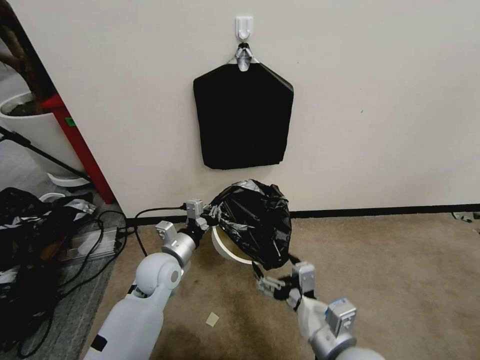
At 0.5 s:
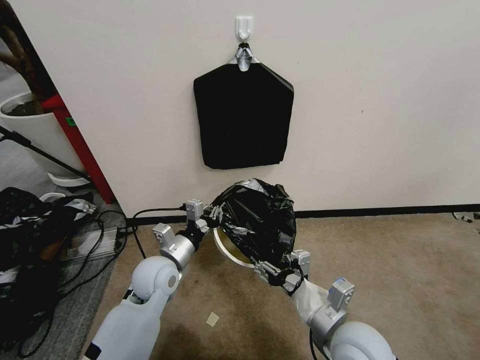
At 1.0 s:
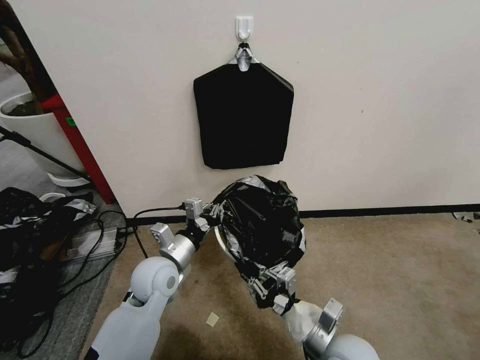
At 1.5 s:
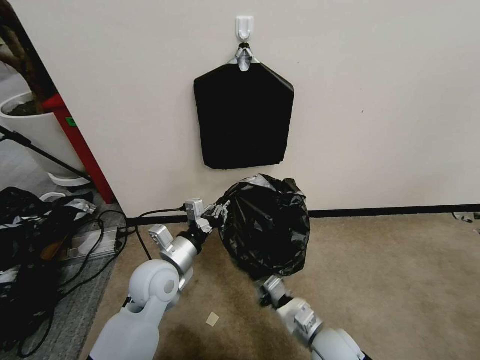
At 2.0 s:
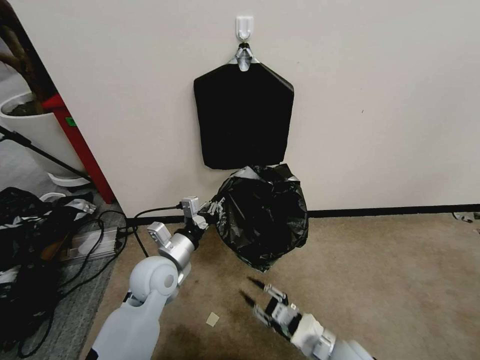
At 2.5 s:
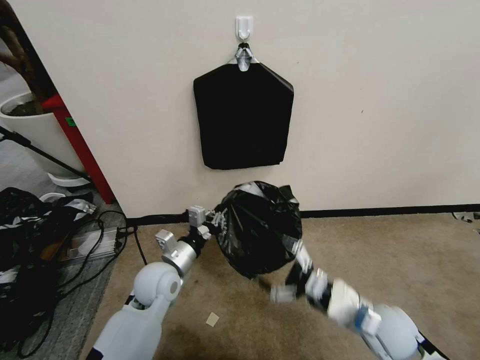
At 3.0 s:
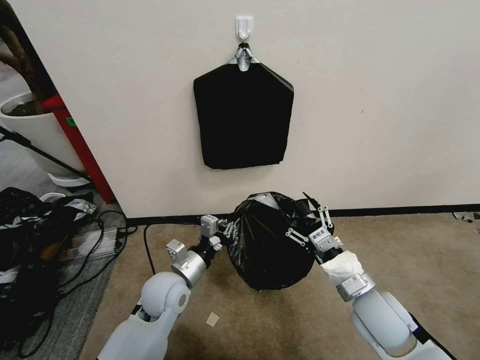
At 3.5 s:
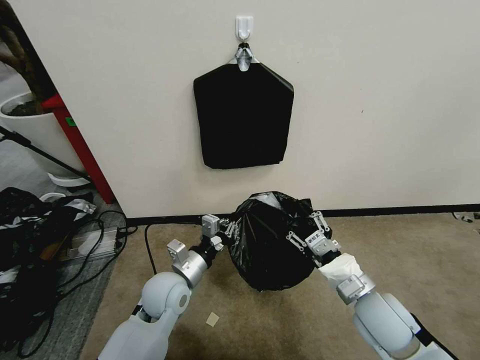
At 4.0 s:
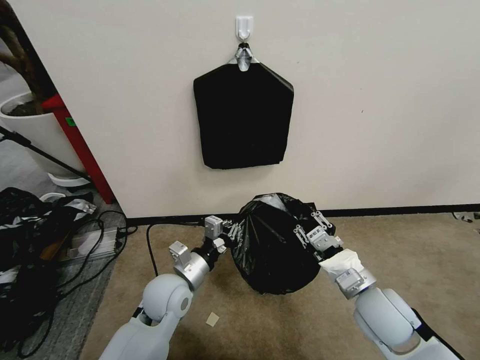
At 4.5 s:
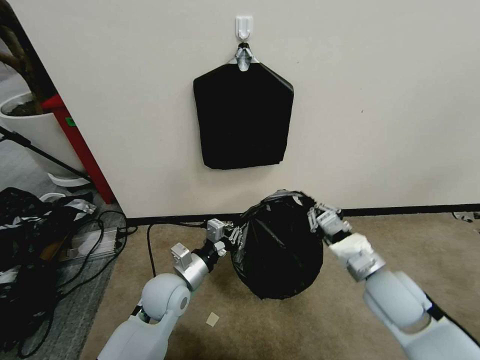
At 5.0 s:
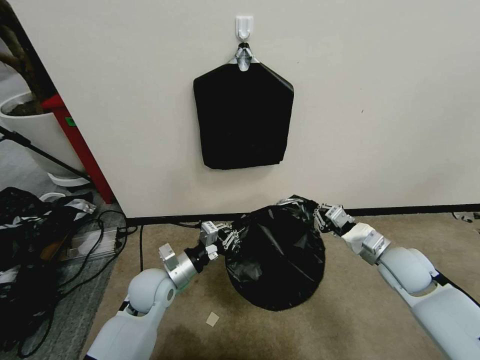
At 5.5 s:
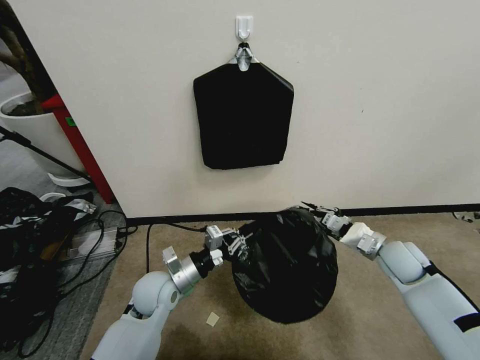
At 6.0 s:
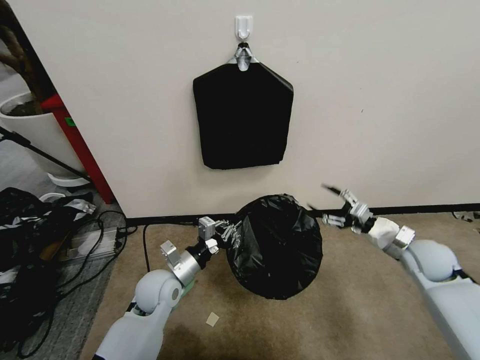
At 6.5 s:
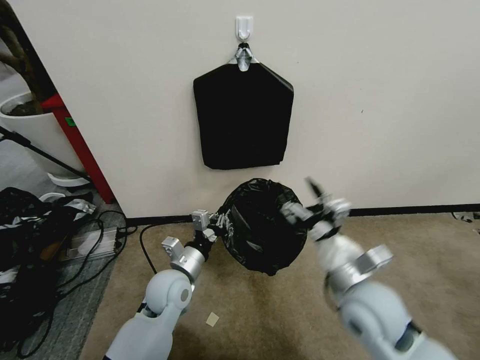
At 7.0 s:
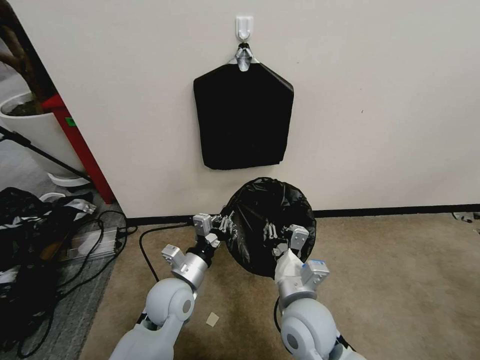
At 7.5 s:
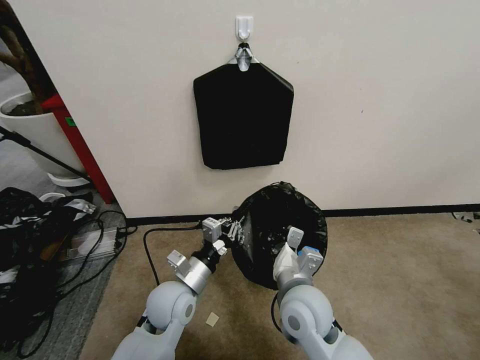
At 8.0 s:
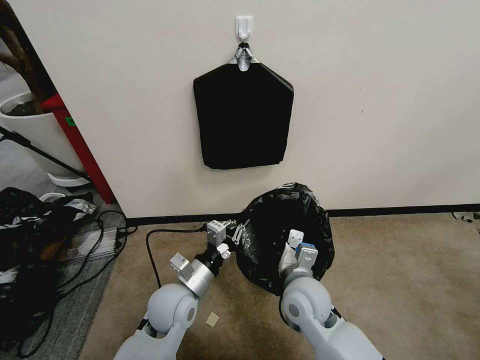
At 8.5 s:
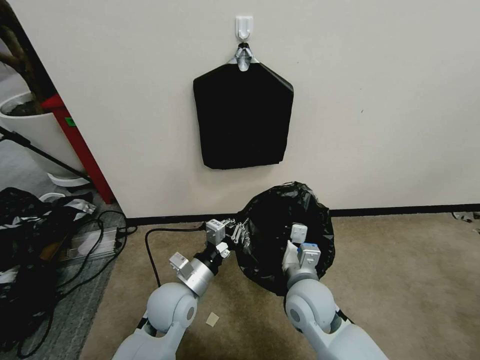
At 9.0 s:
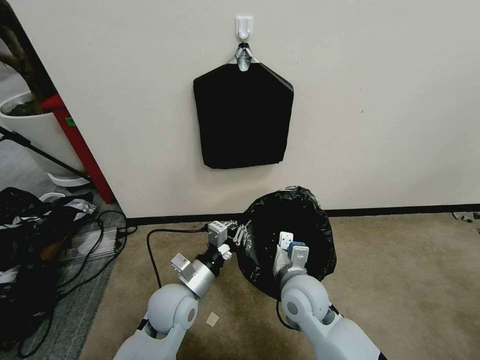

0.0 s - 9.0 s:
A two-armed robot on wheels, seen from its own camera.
Task of the whole recording: Place a trash bag onto the trash bin.
0.0 s - 2.0 s: The right gripper is displaced downward by about 20 cm, and closes its fingers.
2.0 s - 4.5 s: The left gripper changes place by roughly 5 cm, while the right gripper is displaced upward and forward by about 20 cm, and opens and closes again.
4.5 s - 7.0 s: The right gripper heads to the left, covering approximately 15 cm, and opens, then closes again.
7.0 s - 9.0 s: The right gripper goes some 5 cm forward.

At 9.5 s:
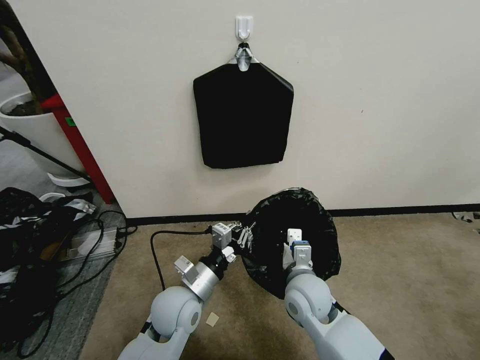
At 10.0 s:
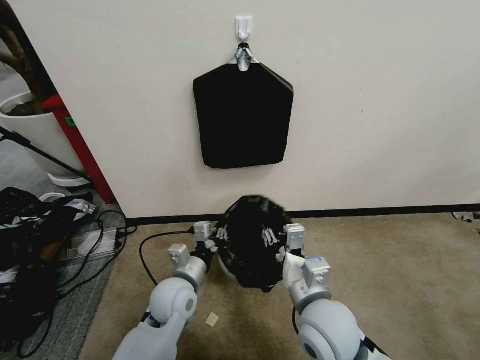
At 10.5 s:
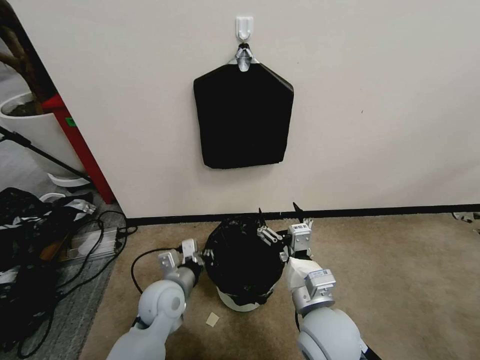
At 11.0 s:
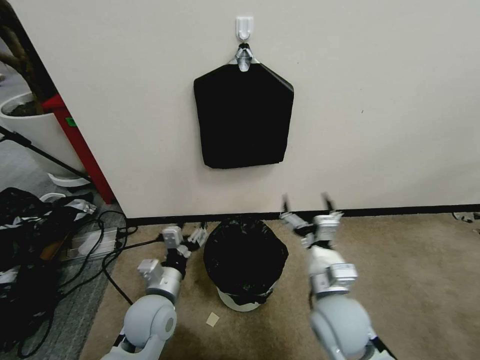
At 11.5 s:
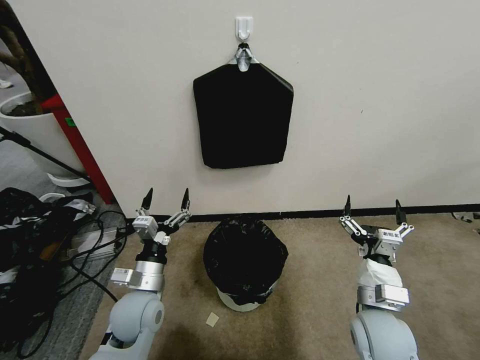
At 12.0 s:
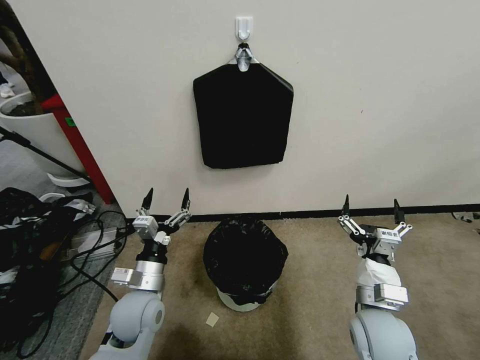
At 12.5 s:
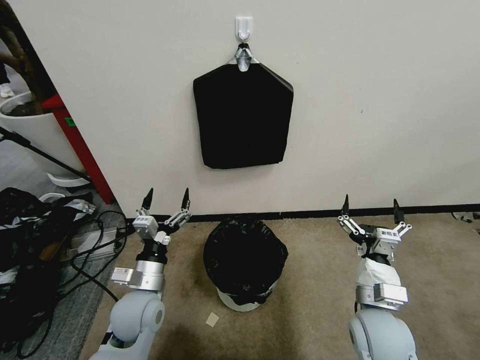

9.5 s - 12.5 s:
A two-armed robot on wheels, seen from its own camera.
Task of the whole recording: Place a trash bag onto the trash bin.
9.5 s - 11.0 s: The right gripper is displaced backward by approximately 5 cm, and opens up; the left gripper heads to the left, covering roughly 5 cm, and opens its fingers.
11.0 s - 12.5 s: The right gripper heads to the right, covering roughly 10 cm.

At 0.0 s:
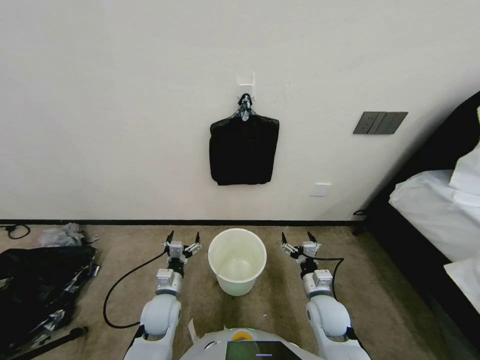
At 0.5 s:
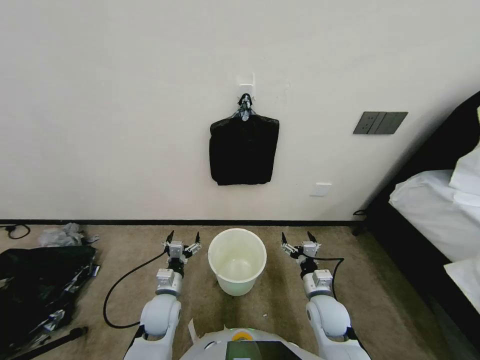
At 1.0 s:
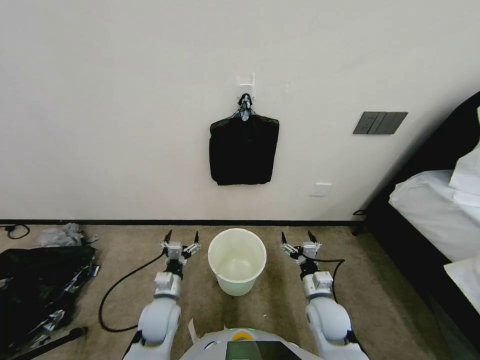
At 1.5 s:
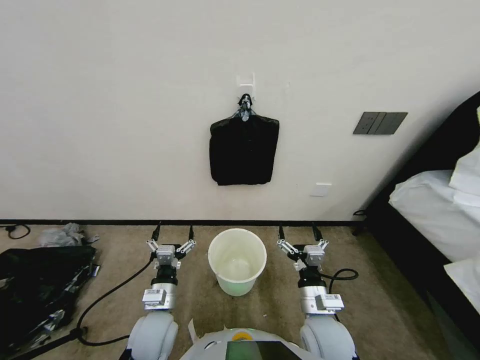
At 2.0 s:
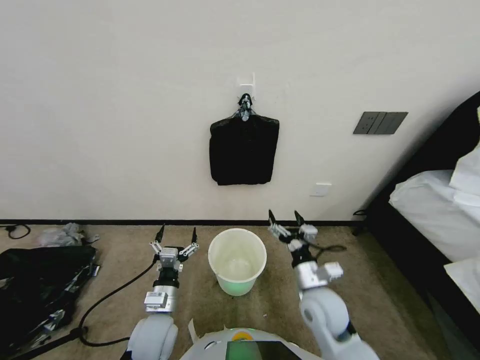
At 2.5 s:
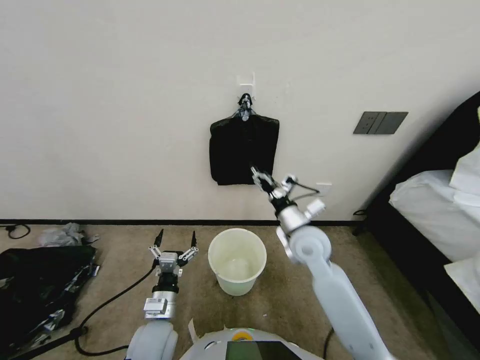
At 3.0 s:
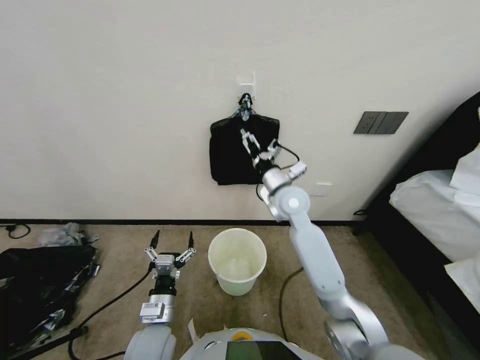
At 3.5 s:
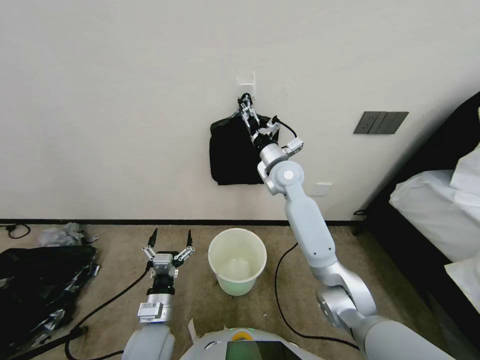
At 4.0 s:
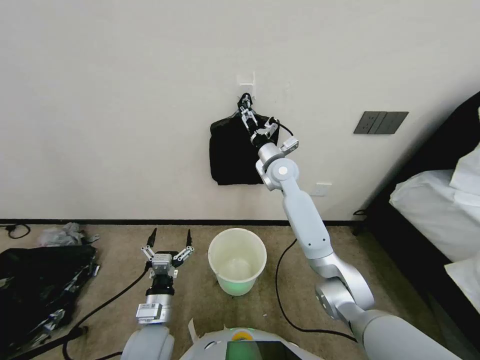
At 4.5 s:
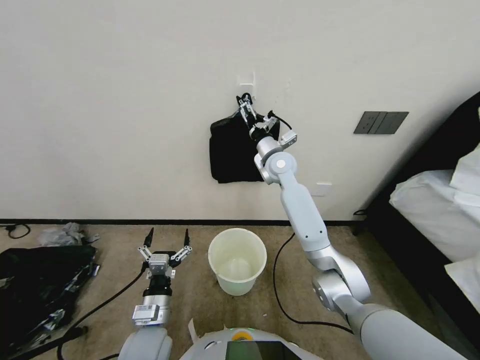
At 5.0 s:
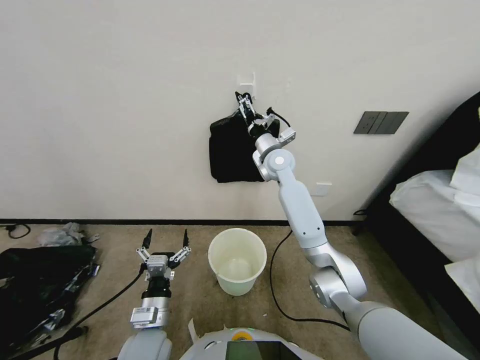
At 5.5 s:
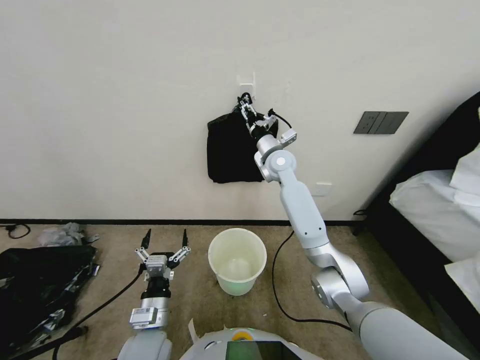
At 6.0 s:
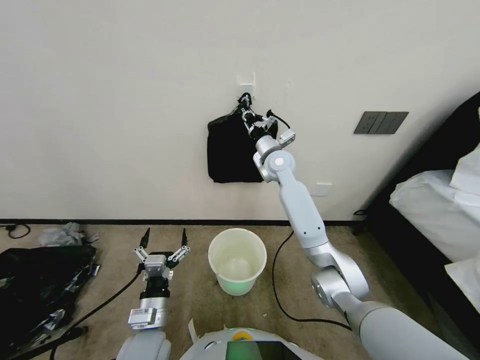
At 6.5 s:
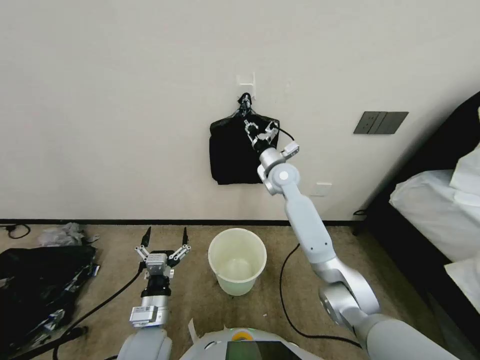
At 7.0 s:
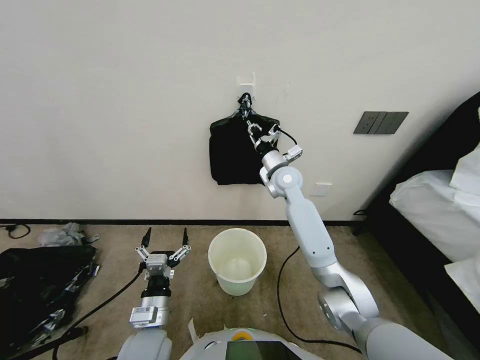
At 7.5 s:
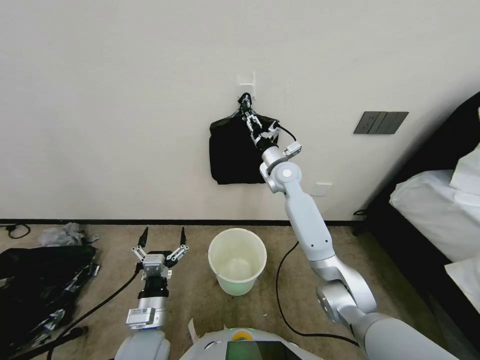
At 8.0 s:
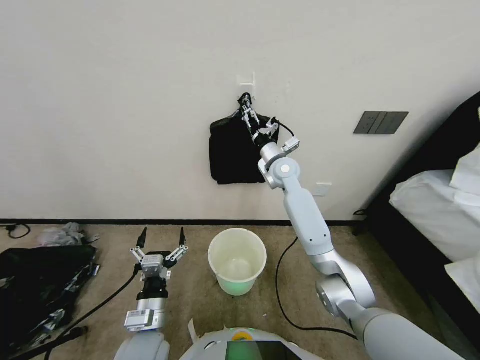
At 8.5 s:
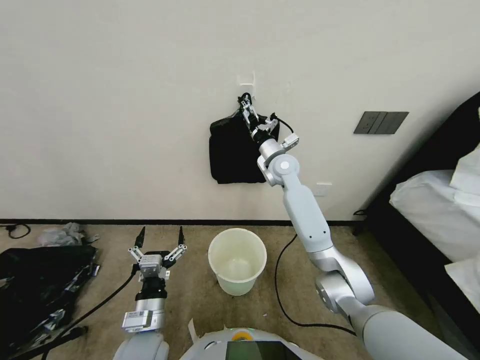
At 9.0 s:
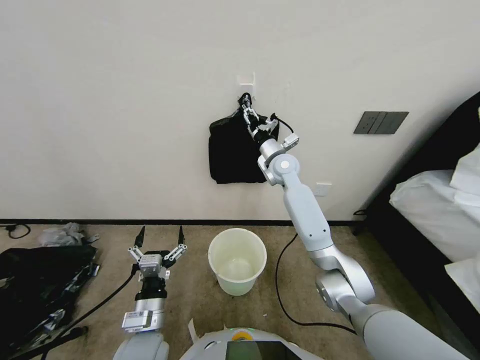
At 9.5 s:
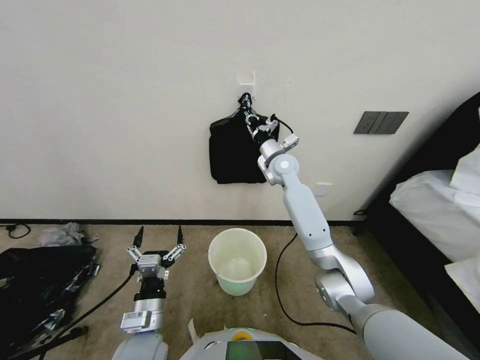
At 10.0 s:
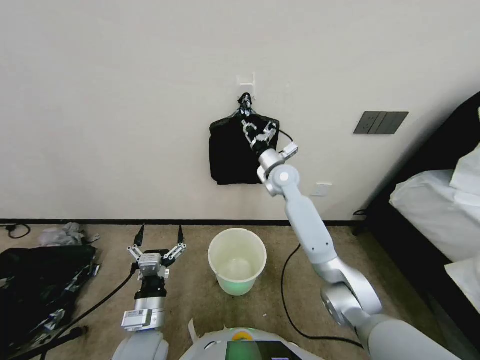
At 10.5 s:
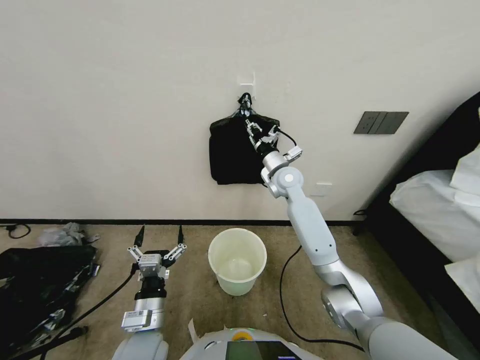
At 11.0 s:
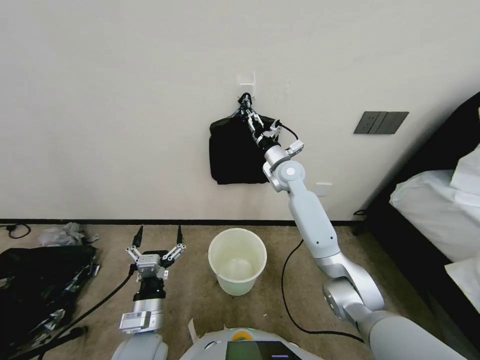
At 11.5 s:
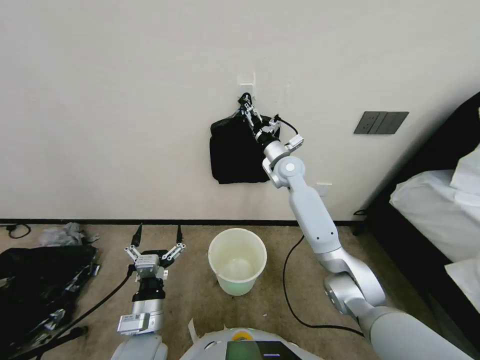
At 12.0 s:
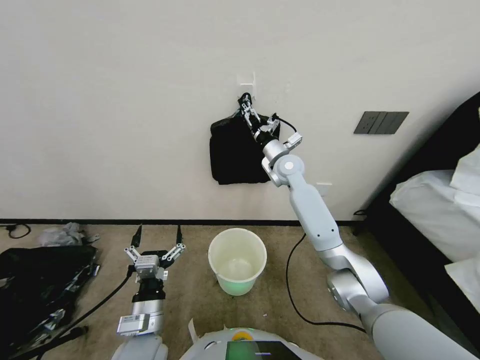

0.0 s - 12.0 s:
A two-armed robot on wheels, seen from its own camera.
Task of the whole recording: Place a trash bag onto the trash bin.
2.0 s - 4.0 s: The right gripper heads forward and upward, covering some 40 cm.
4.0 s - 6.0 s: The right gripper closes.
6.0 s - 8.0 s: The right gripper opens up.
8.0 s - 10.0 s: The right gripper closes.
10.0 s - 12.0 s: The right gripper opens.

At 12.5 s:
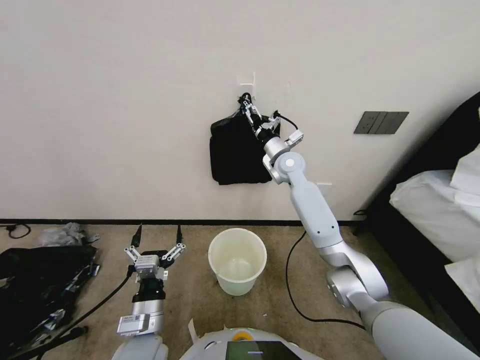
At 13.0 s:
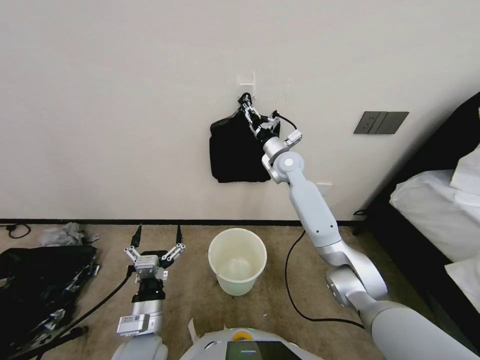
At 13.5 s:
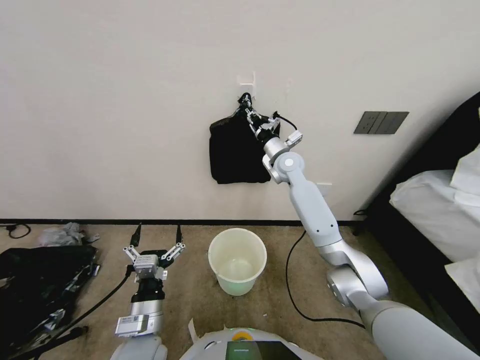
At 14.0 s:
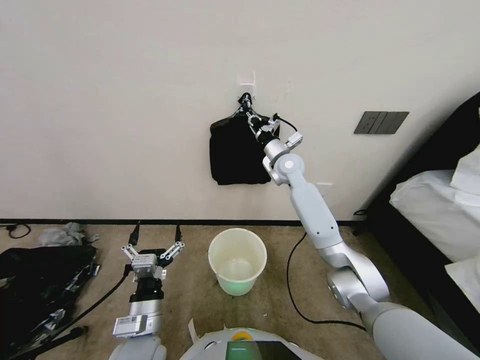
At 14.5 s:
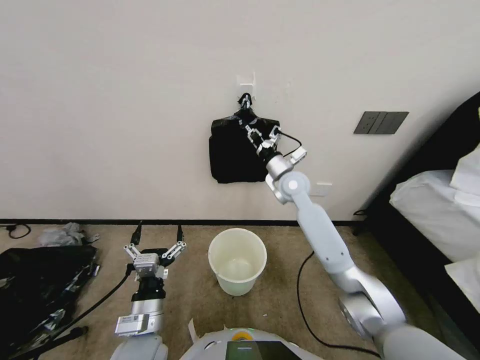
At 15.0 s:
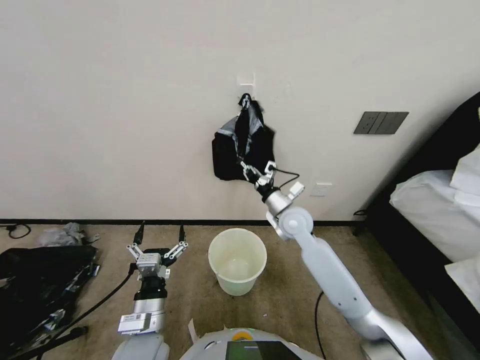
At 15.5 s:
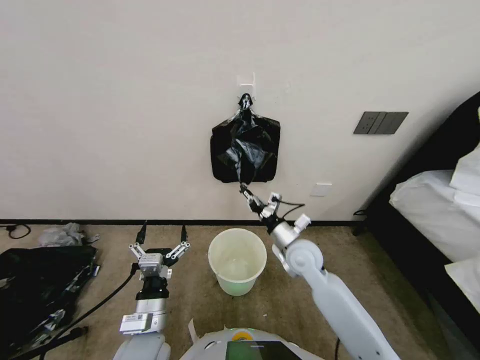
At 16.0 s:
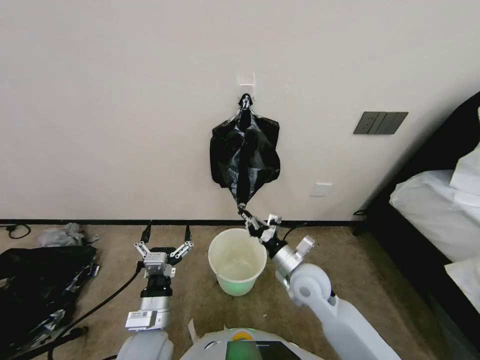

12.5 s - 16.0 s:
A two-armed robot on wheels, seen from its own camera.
Task of the whole recording: Place a trash bag onto the trash bin.
12.5 s - 14.5 s: The right gripper changes place by approximately 5 cm, and closes its fingers.
14.5 s - 16.0 s: The right gripper heads backward and downward, covering roughly 25 cm.
